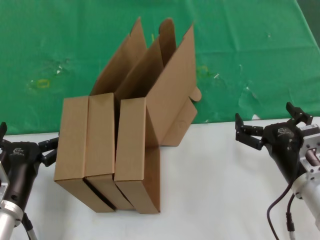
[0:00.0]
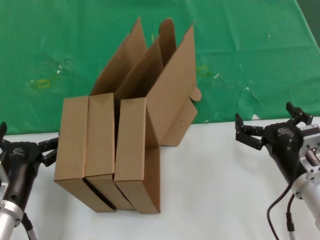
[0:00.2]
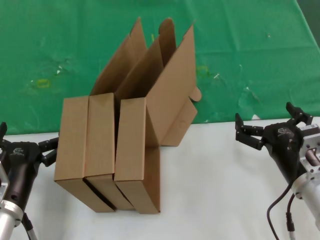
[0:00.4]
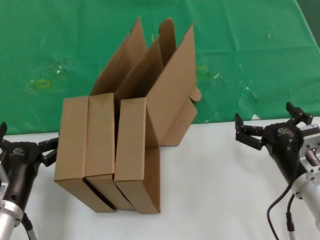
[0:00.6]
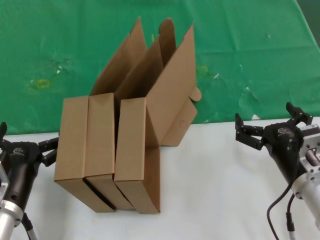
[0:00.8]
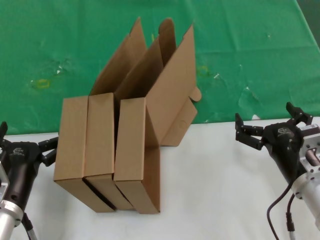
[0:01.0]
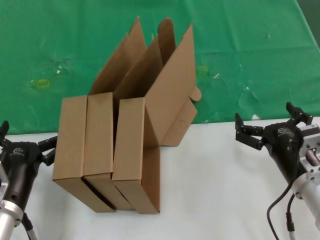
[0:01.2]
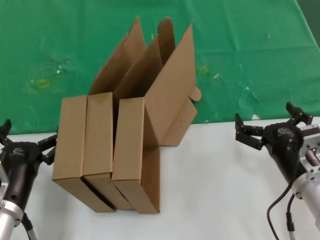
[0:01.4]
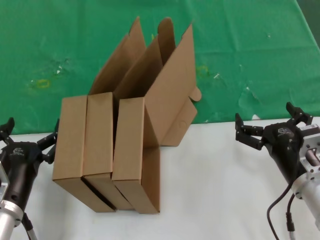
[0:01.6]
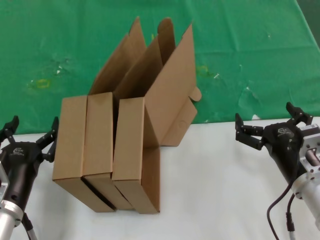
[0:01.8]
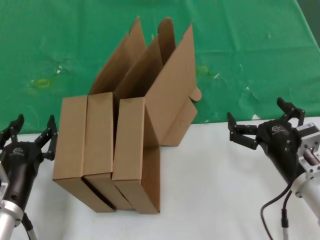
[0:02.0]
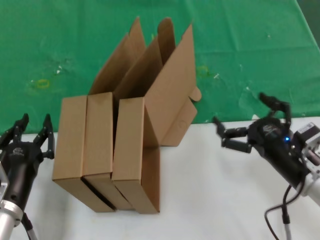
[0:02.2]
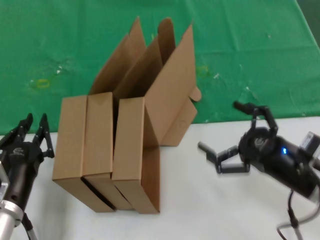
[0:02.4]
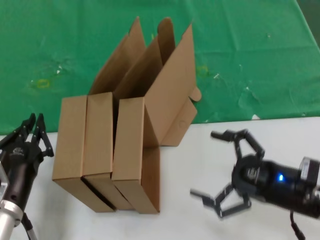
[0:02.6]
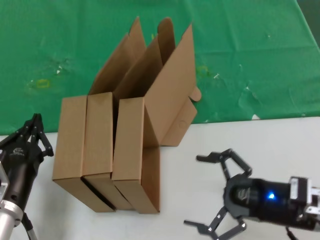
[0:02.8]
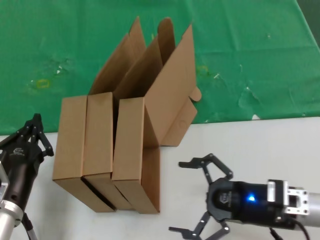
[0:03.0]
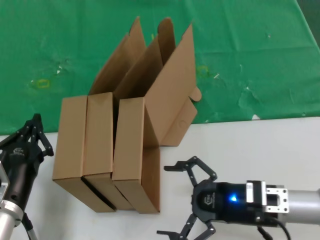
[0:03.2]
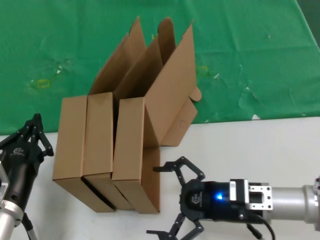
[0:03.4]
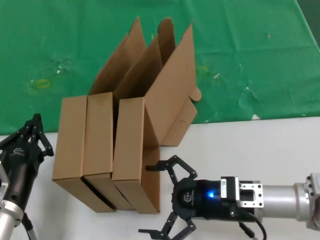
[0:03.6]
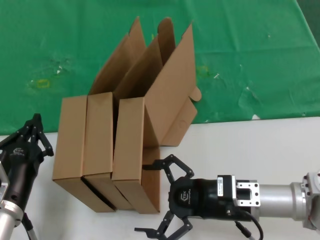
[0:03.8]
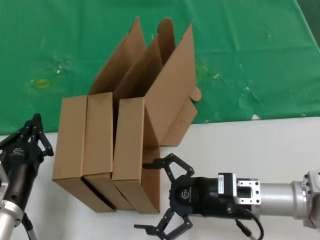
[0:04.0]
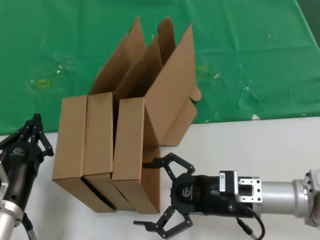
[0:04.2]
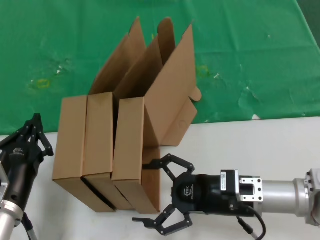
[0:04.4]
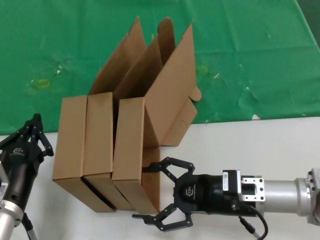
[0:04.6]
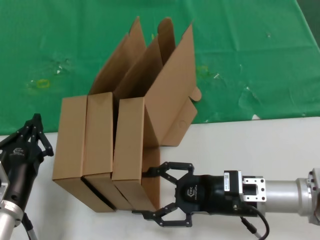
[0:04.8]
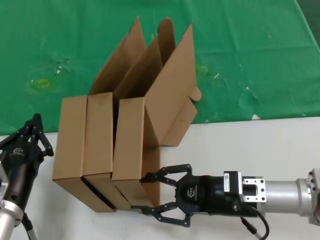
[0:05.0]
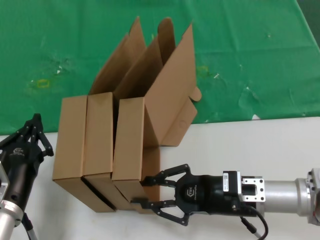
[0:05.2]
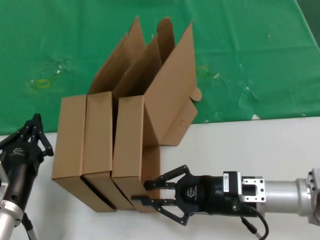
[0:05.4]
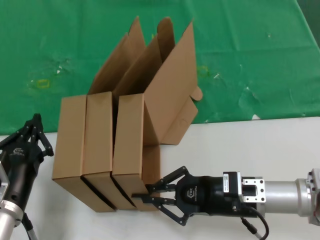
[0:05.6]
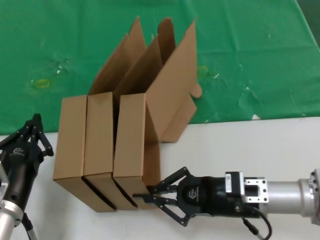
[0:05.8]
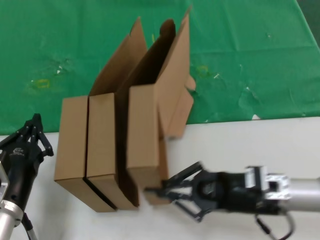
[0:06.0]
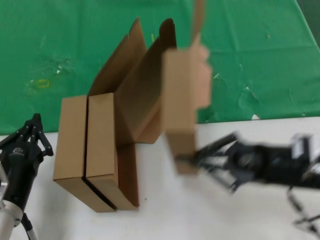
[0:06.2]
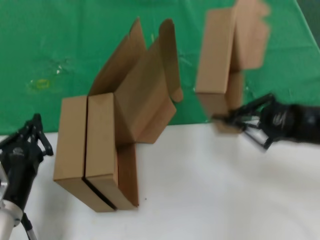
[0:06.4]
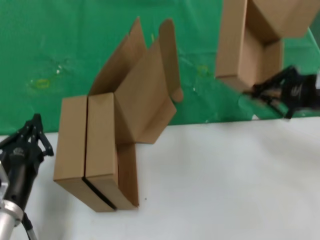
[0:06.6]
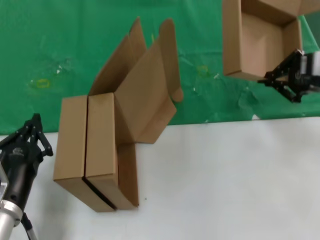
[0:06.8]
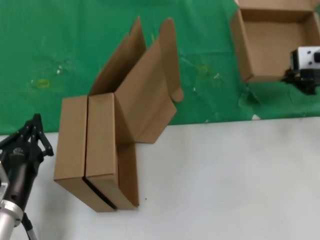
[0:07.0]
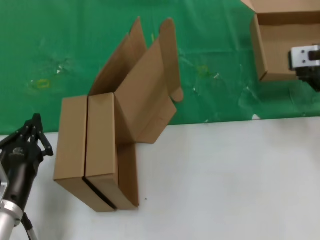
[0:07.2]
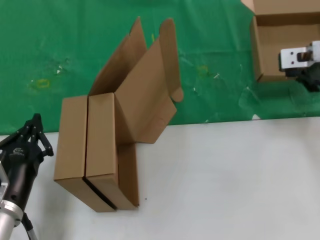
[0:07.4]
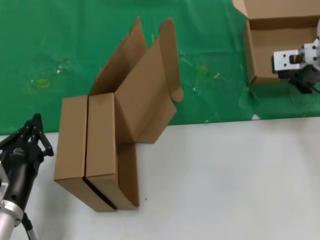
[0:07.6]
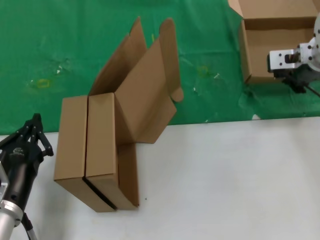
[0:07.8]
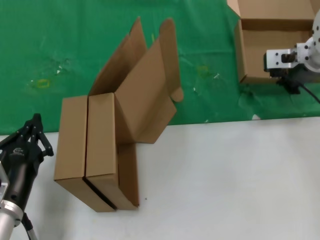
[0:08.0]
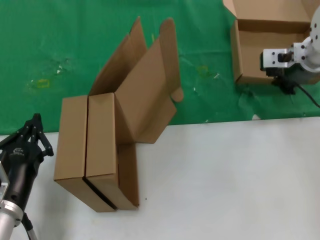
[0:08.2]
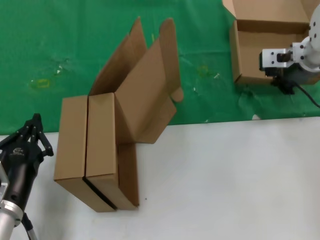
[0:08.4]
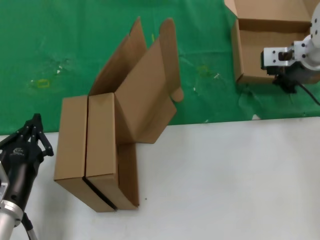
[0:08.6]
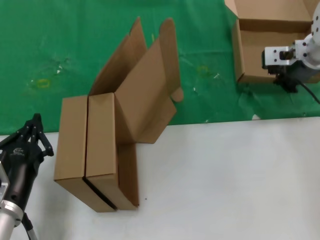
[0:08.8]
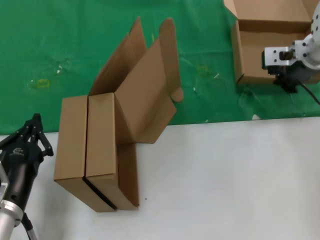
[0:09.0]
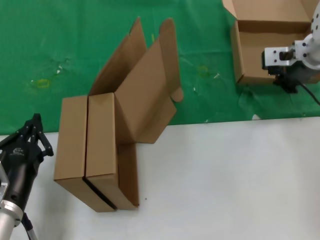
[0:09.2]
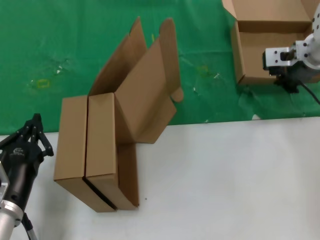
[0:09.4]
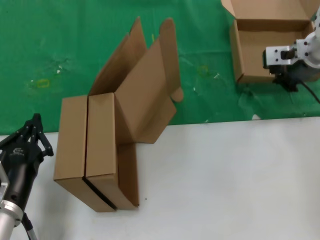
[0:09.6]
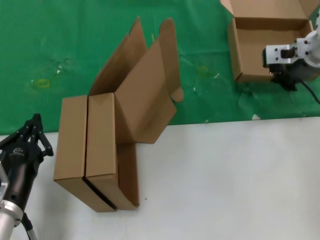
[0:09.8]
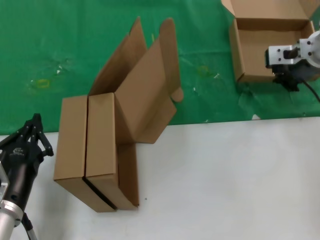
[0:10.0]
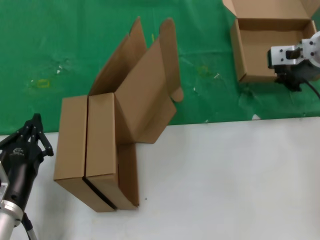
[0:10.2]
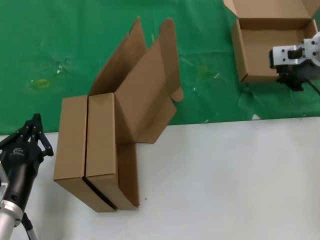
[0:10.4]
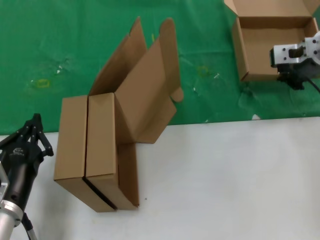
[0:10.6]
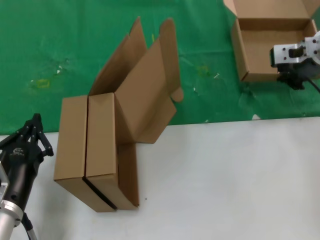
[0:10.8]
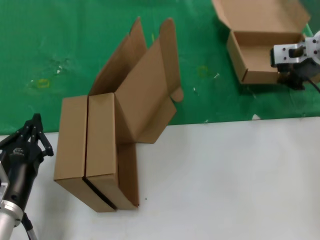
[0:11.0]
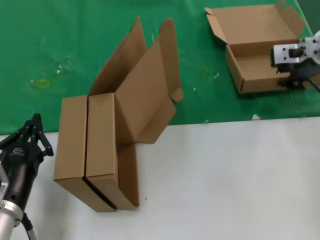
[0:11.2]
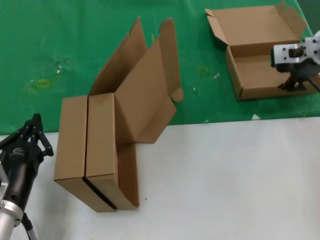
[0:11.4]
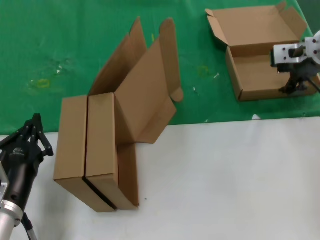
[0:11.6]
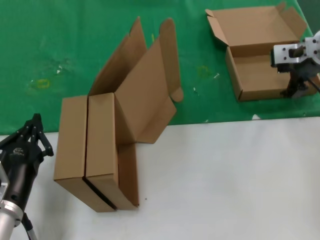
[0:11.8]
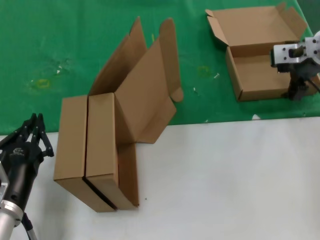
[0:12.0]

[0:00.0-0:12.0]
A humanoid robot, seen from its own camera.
Task of the whole recording: pick up the paper box and put it at the back.
Step, 0:00.0 to 0:05.4: Grasp the paper box.
Step, 0:05.6 to 0:11.6: Place the paper box on the table.
0:00.0 to 0:01.6: Neither hand changes place.
0:03.0 to 0:04.4: The right hand goes about 5 cm to the left.
0:04.4 to 0:06.0: The hands make only small movements.
0:06.0 to 0:07.6: The right hand shifts some 25 cm upward and forward.
0:07.6 to 0:10.4: The hands move only a little.
0:10.4 to 0:12.0: The two hands keep their place.

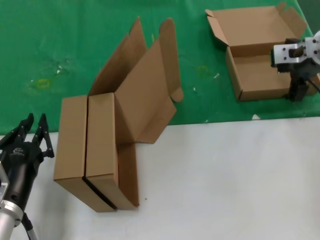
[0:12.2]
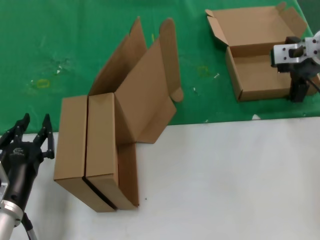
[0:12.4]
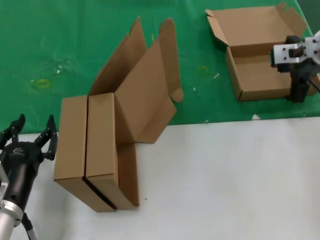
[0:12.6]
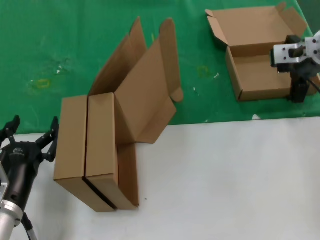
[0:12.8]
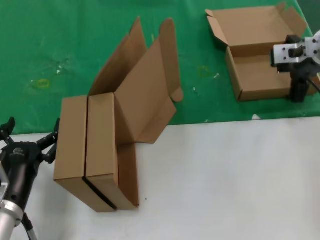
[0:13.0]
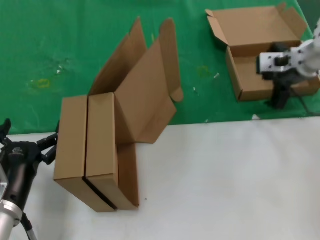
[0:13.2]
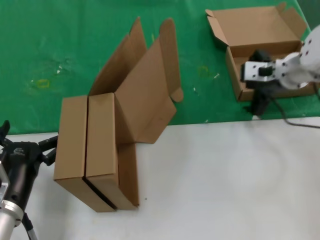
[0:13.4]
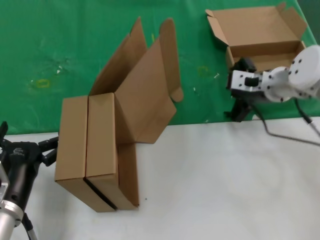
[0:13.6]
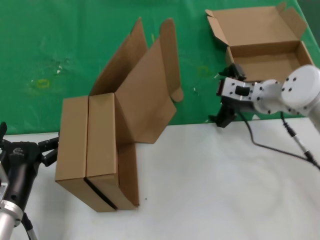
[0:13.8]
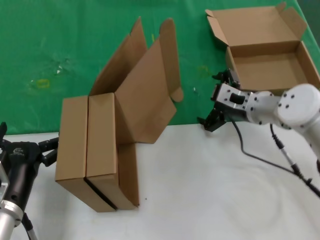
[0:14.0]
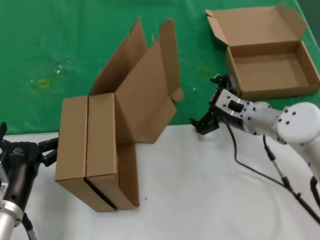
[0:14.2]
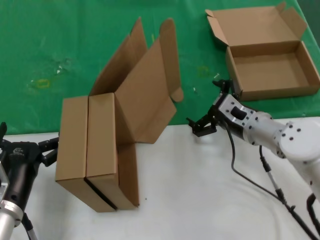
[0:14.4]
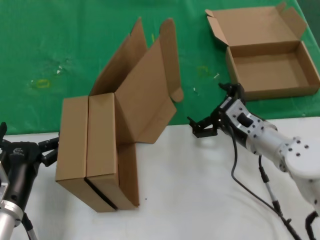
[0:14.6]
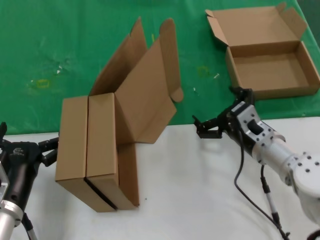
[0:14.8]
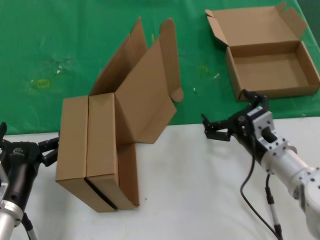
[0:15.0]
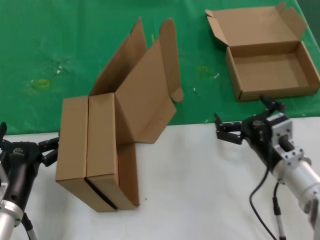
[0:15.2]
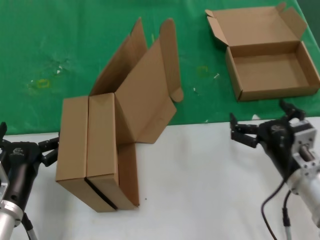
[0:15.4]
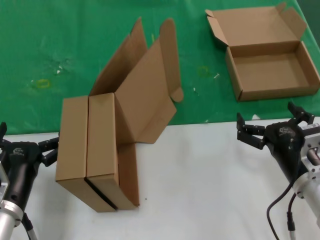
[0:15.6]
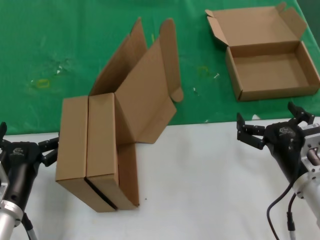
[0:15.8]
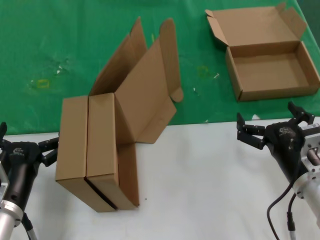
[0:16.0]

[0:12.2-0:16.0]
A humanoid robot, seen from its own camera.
Task of the whole recording: pick up the paper box and put it at the back.
0:12.2 to 0:13.4: The right hand moves downward, approximately 5 cm.
0:13.4 to 0:14.8: The right hand heads downward and backward, covering roughly 20 cm.
0:14.8 to 0:16.0: The right hand heads backward, covering some 10 cm.
